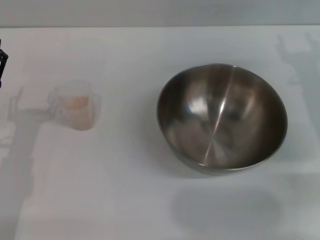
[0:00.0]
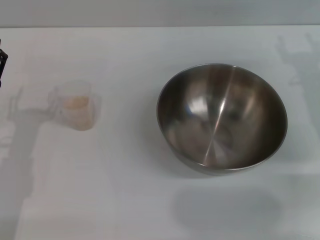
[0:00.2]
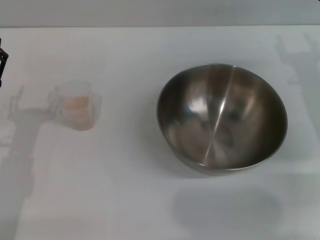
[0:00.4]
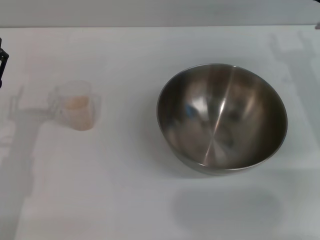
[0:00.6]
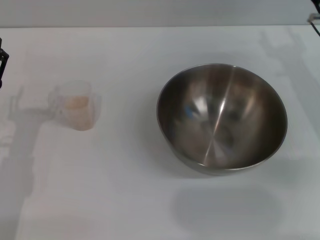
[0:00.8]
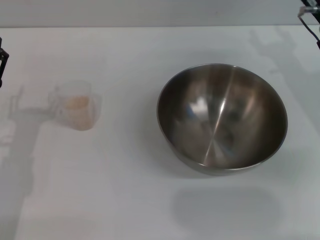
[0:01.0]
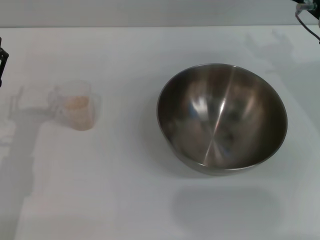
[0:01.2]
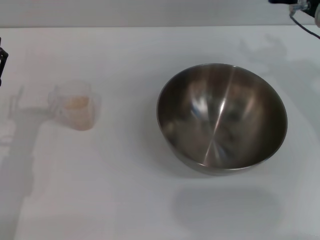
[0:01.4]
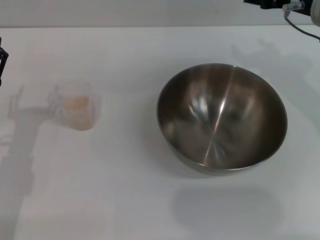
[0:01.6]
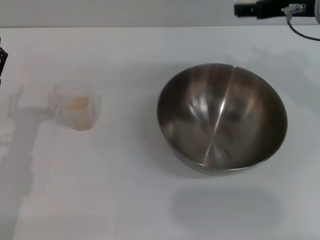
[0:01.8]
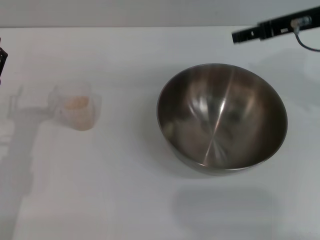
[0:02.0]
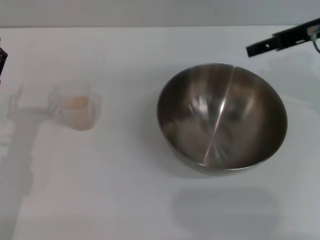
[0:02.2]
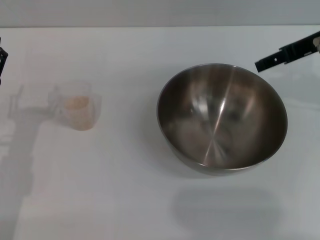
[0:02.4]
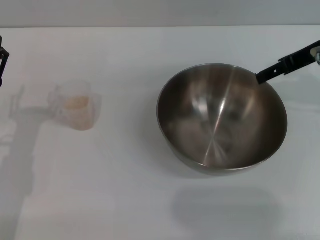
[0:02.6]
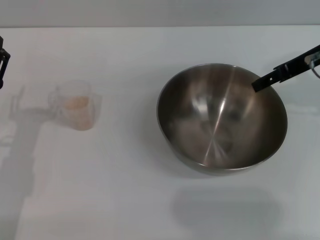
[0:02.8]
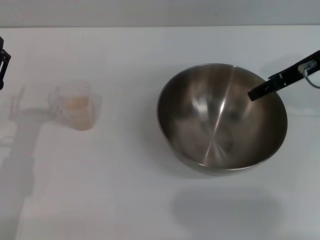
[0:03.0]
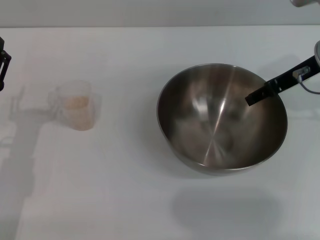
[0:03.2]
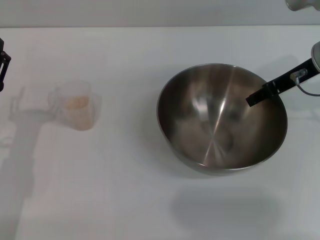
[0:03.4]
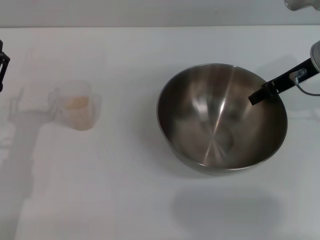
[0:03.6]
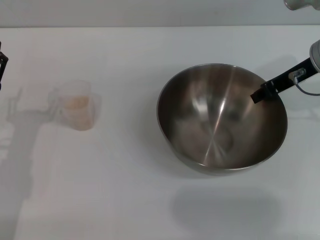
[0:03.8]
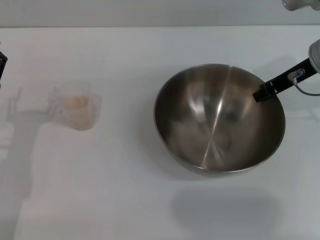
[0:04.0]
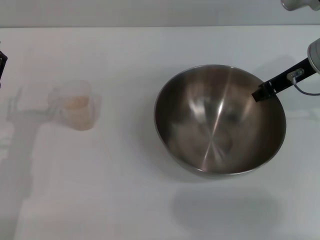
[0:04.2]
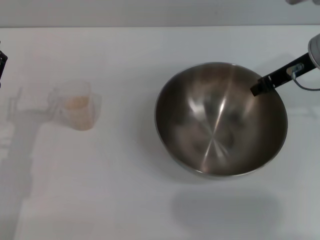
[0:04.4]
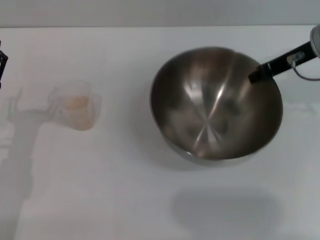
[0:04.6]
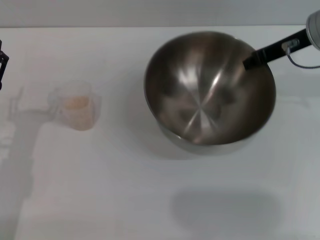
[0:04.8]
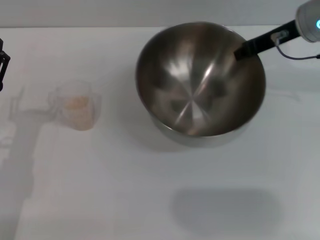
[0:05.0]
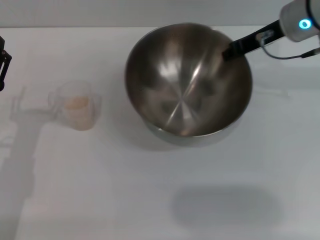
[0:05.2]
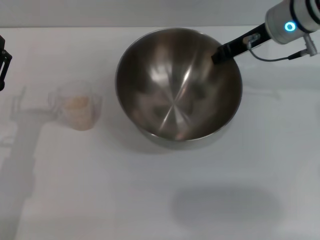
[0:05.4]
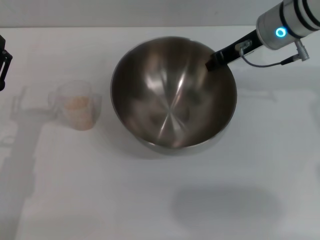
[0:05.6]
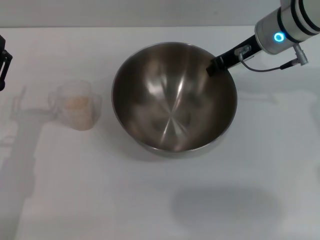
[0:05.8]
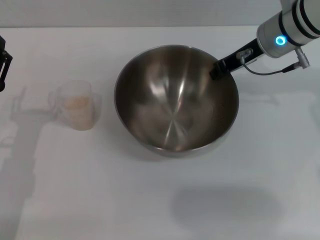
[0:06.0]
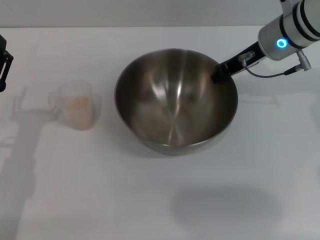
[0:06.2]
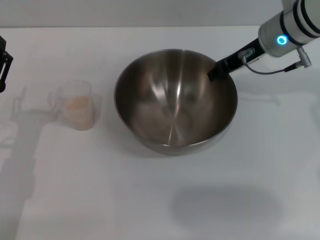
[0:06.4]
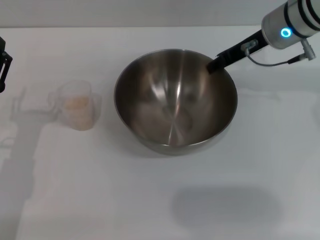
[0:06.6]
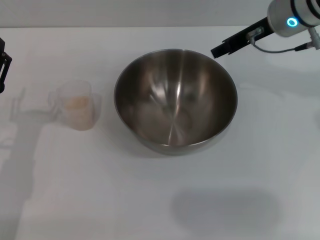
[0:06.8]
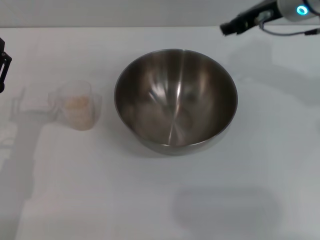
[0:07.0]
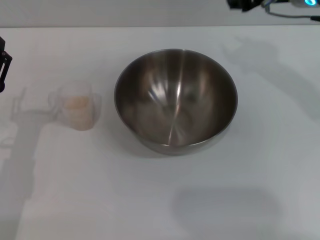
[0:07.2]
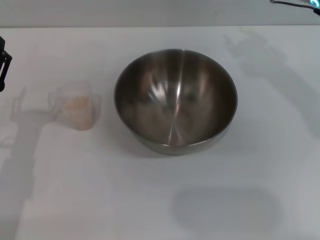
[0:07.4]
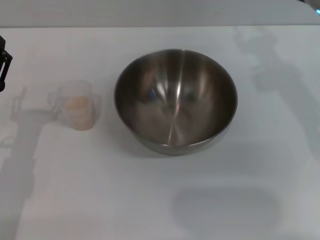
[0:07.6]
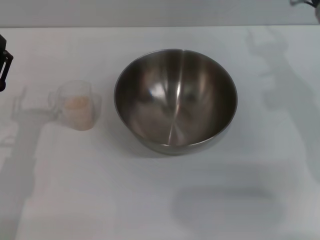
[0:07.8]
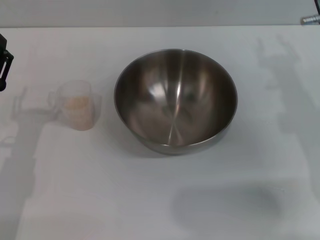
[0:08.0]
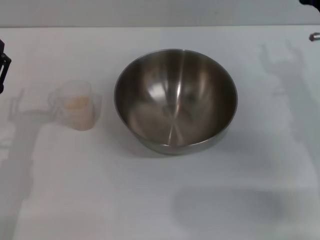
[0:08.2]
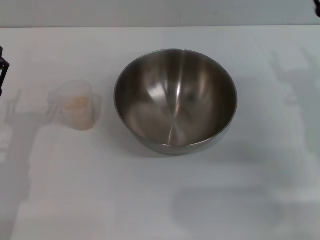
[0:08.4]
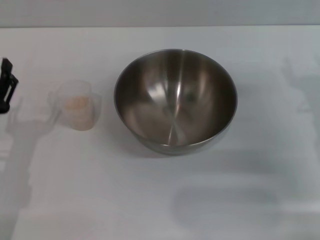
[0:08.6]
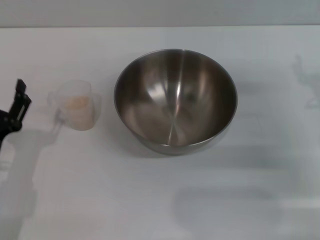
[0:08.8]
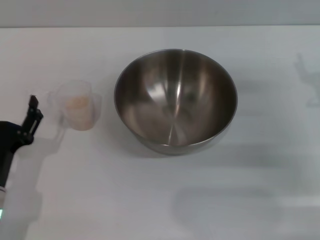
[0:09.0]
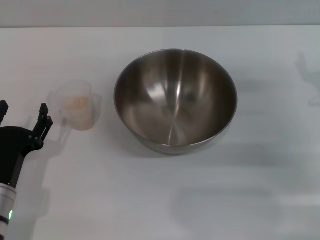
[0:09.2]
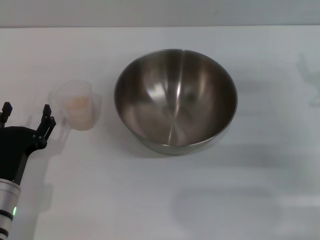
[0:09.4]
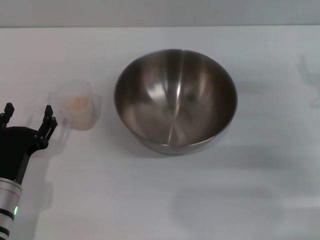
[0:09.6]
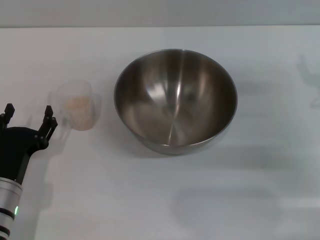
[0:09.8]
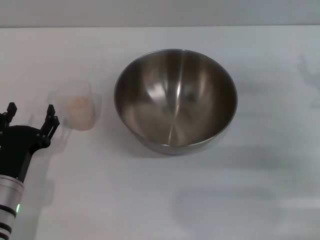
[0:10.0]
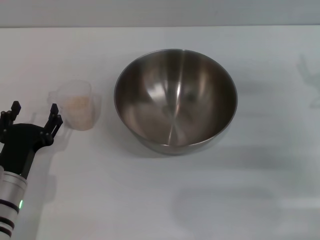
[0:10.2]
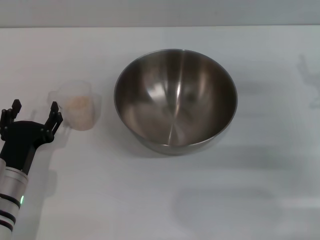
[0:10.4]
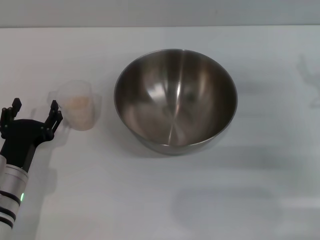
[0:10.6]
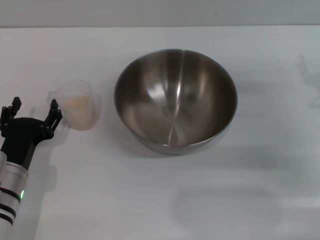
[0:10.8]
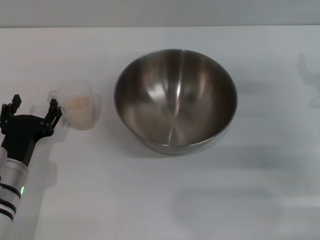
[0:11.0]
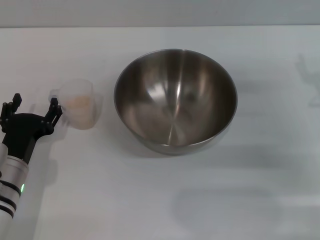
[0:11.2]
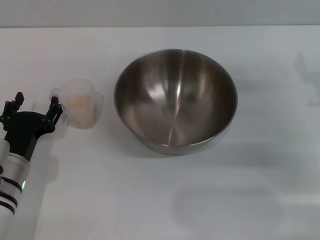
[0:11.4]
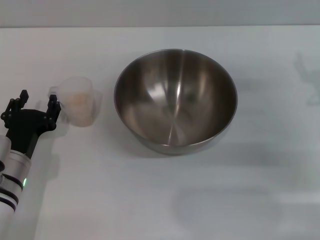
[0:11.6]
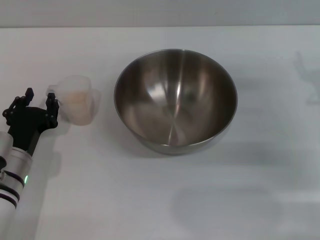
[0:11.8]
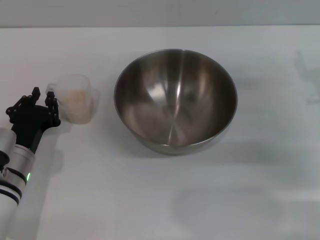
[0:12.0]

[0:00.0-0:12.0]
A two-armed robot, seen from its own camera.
Task of the whole recording: Place the bowl in the middle of the table with one hand and pour the rice from the grain cup into it with the other hand.
Step, 0:00.0 to 0:04.6: Pick up the bowl with the right gripper.
Step, 0:04.8 to 0:06.8: Place the bowl in the center of view with the right gripper.
0:00.0 to 0:01.6: The right gripper moves upward and to the left, some 10 cm.
0:03.0 to 0:04.4: The right gripper closes.
0:04.4 to 0:06.0: The right gripper is displaced to the left by about 5 cm.
0:06.0 to 0:07.6: The right gripper is displaced backward by approximately 5 cm, and opens up.
0:07.6 to 0:09.0: The left gripper ends up some 5 cm from where it was, while the right gripper is displaced downward, to the right and backward by approximately 15 cm, and opens up.
0:09.0 to 0:10.4: The grippers move only a little.
0:10.4 to 0:12.0: The left gripper closes up.

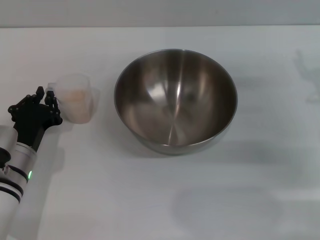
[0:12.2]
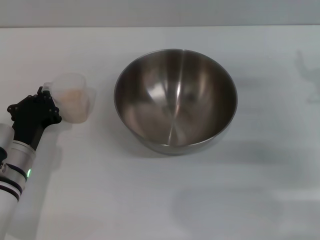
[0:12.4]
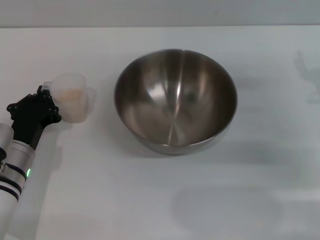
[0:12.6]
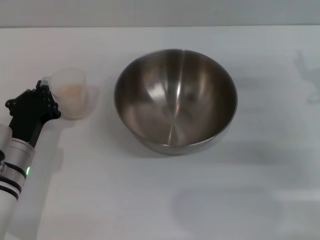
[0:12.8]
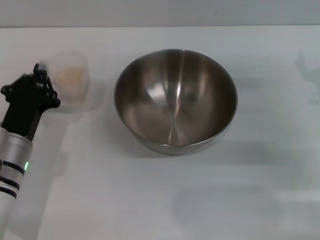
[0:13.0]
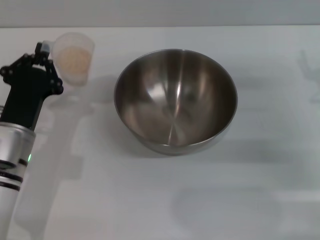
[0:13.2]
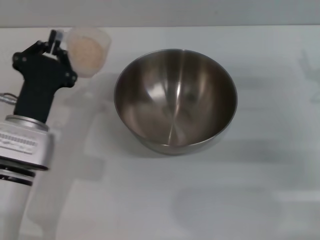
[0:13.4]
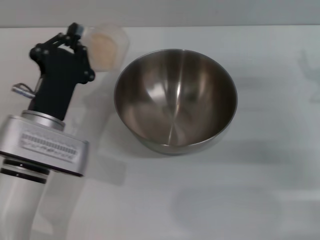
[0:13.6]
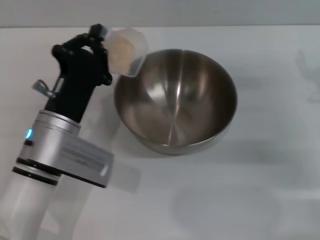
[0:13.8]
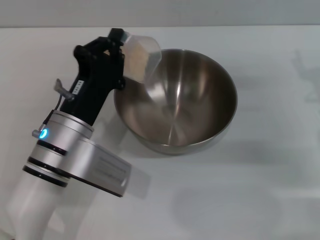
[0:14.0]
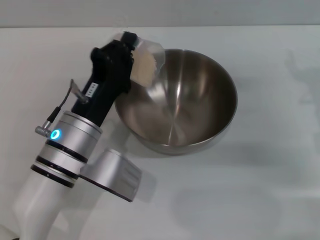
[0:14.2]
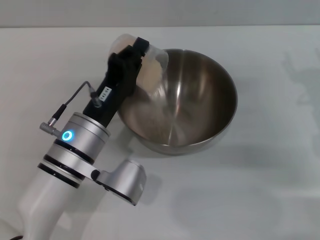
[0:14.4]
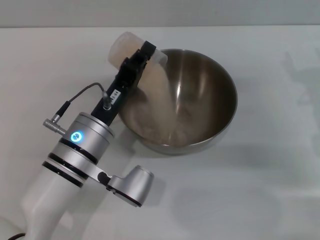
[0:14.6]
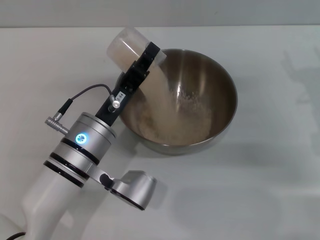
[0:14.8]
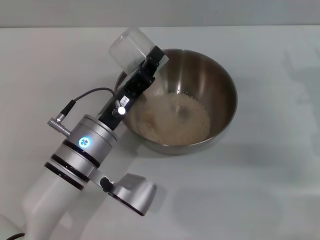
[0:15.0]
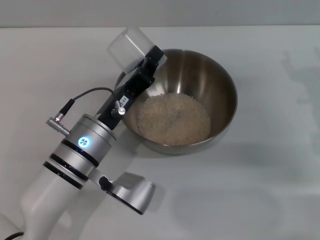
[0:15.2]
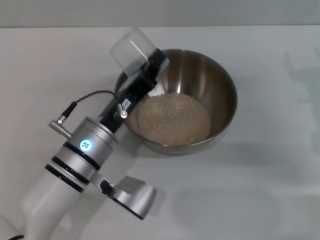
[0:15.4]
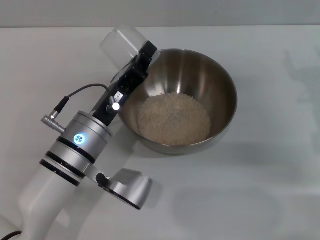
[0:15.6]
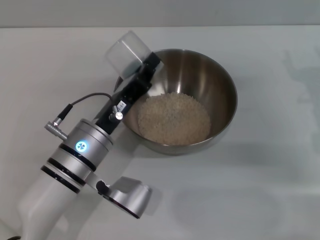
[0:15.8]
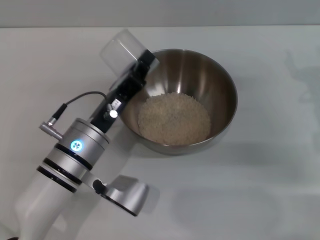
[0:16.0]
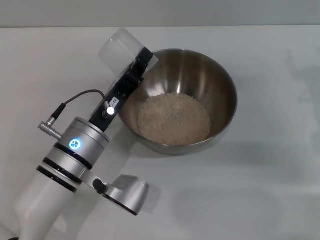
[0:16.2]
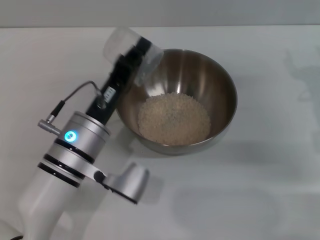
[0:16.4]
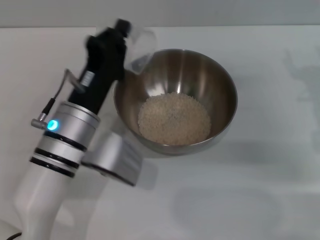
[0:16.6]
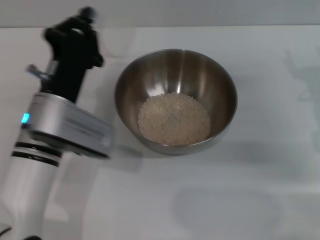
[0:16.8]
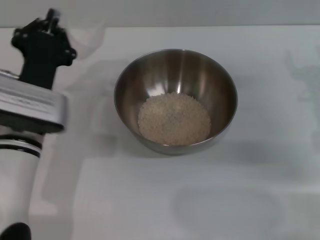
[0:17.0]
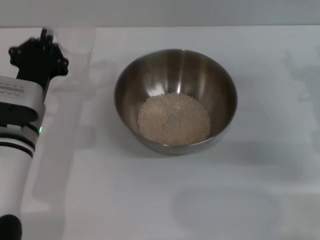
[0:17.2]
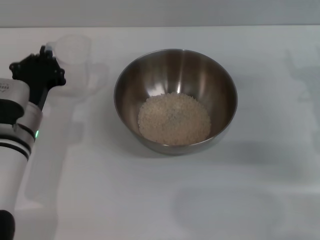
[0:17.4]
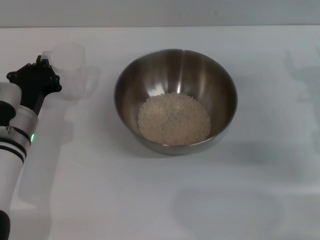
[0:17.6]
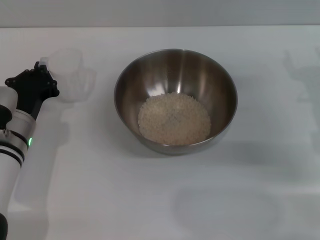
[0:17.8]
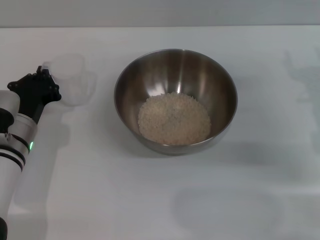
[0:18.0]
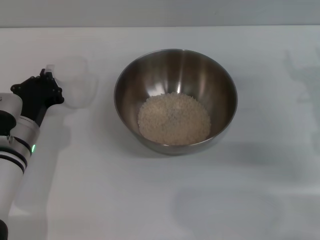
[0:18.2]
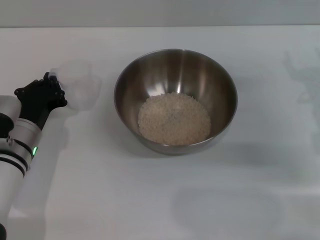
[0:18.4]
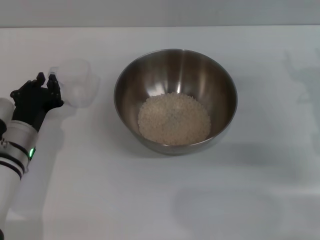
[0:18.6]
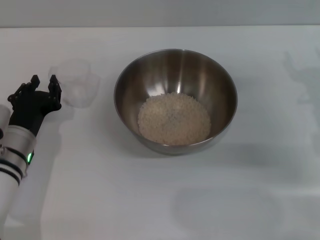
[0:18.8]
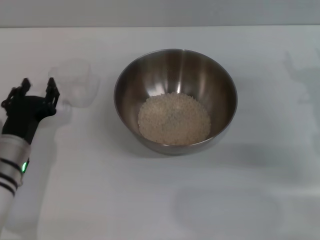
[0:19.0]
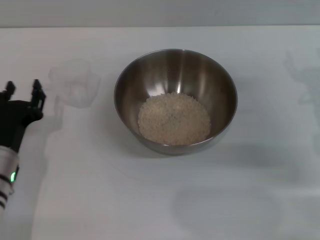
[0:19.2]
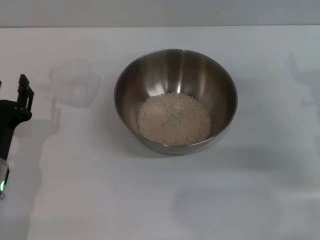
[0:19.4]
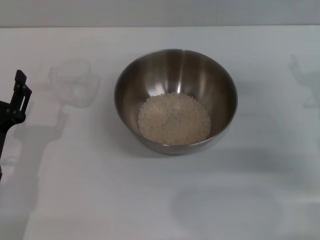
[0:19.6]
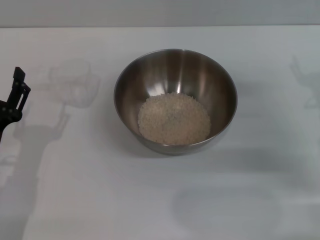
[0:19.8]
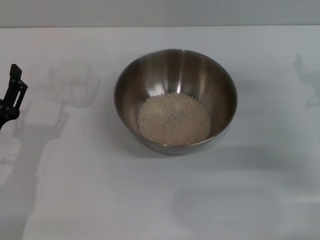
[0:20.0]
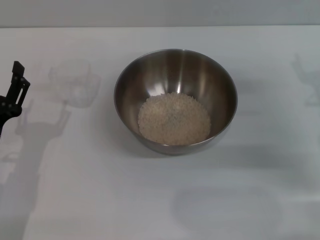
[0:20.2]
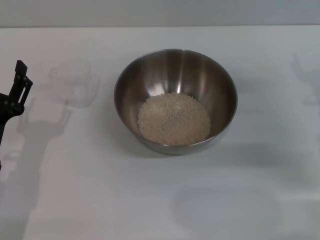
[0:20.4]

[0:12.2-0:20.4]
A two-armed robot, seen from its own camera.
Task of the whole recording: Place the bowl in the middle of the table with one hand and pour the rice from the grain cup into it with the other hand.
Step, 0:13.0 to 0:16.0: Pour the rice from the cup into the bowl with the left gripper.
Step, 0:16.2 to 0:19.0: Place the cup on the table with the left gripper.
0:12.2 to 0:13.8: The left gripper goes some 10 cm to the right and upward.
0:15.4 to 0:17.2: The left gripper is displaced to the left by approximately 10 cm.
0:17.2 to 0:18.8: The left gripper moves about 5 cm.
0:18.8 to 0:20.4: The left gripper shifts about 5 cm backward, and opens.
